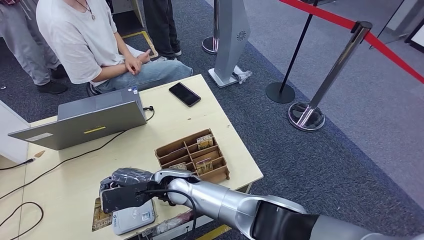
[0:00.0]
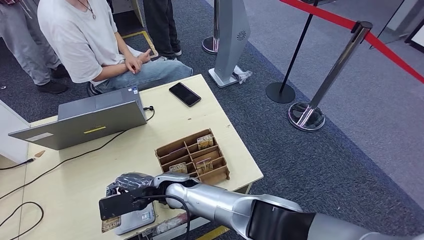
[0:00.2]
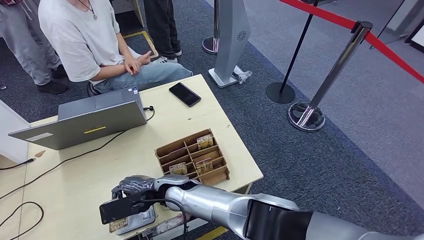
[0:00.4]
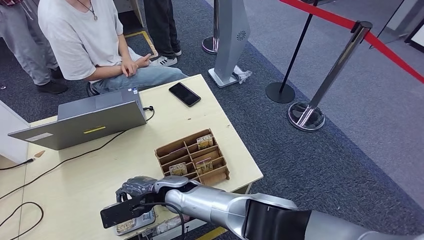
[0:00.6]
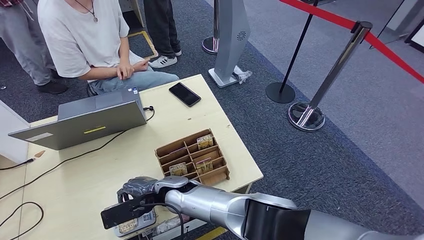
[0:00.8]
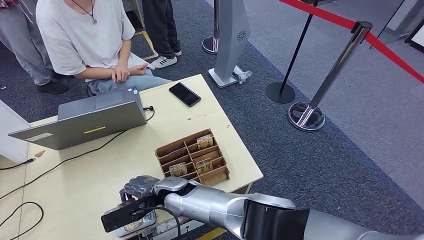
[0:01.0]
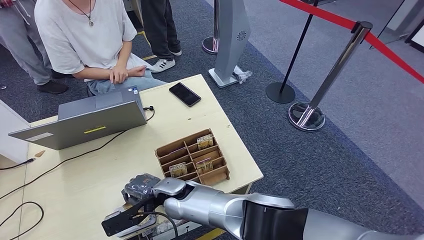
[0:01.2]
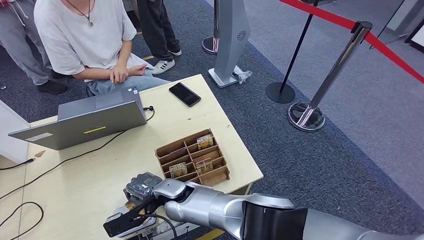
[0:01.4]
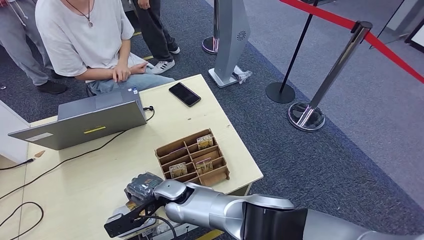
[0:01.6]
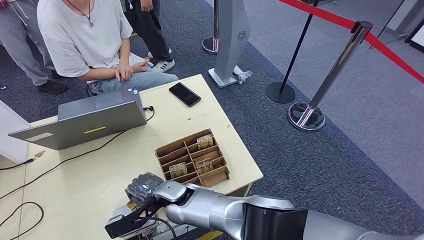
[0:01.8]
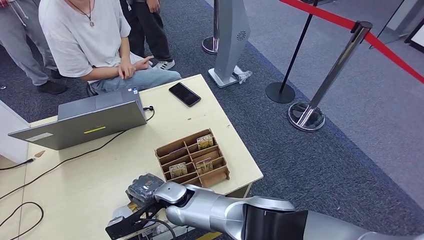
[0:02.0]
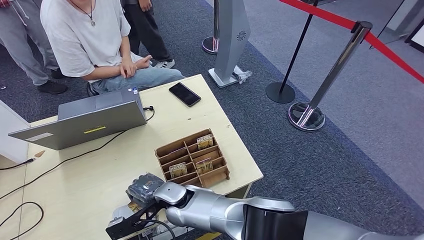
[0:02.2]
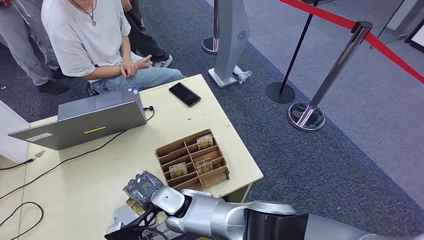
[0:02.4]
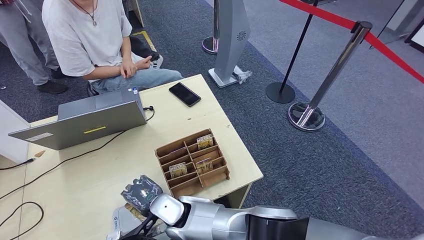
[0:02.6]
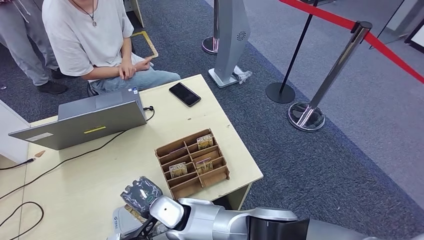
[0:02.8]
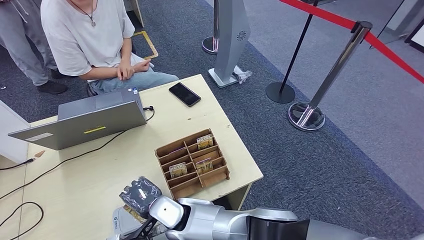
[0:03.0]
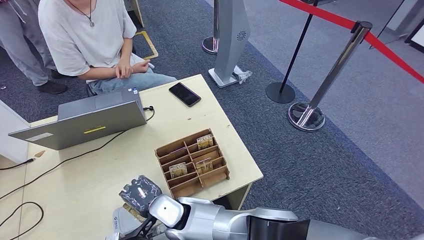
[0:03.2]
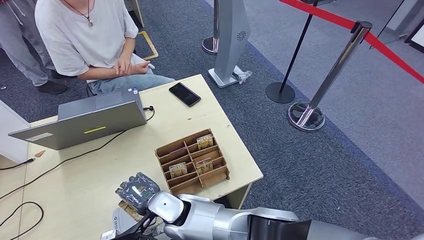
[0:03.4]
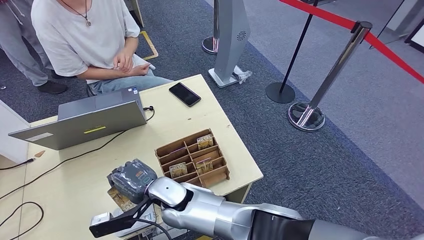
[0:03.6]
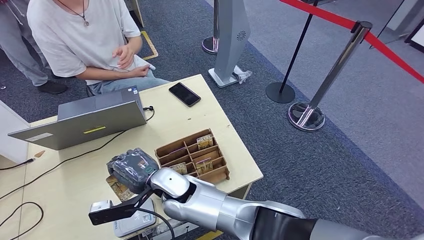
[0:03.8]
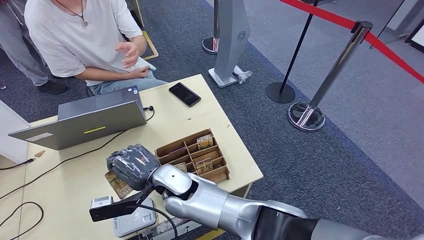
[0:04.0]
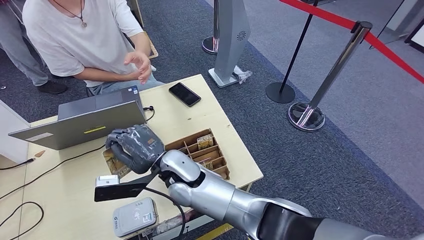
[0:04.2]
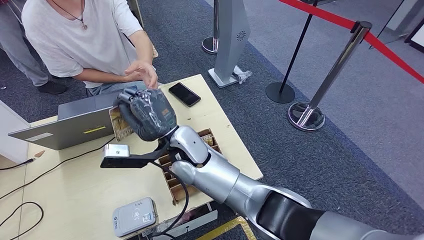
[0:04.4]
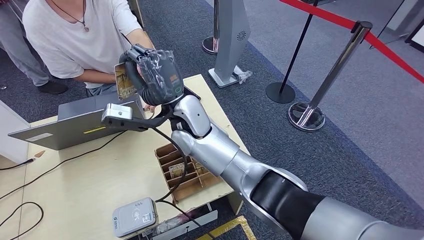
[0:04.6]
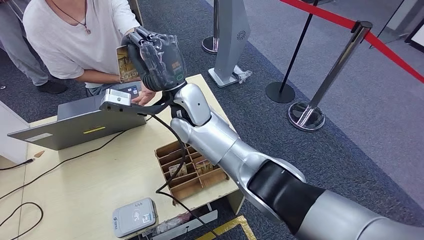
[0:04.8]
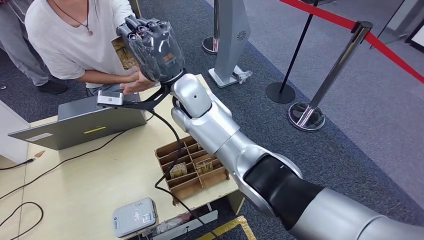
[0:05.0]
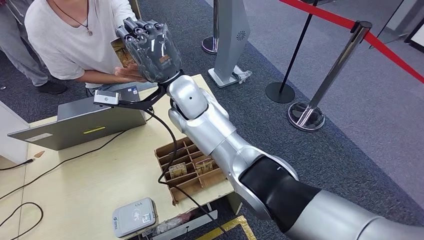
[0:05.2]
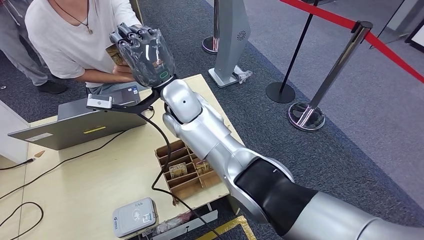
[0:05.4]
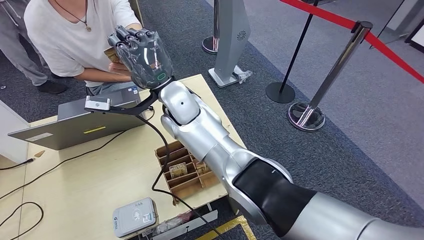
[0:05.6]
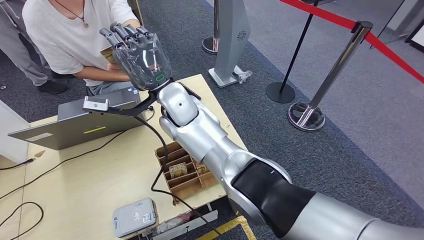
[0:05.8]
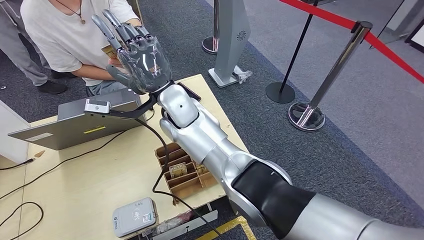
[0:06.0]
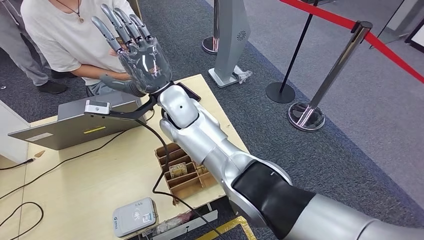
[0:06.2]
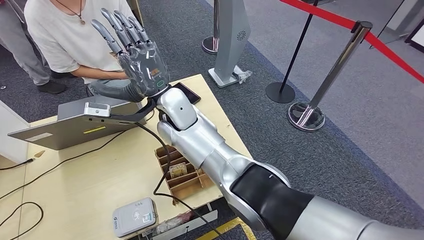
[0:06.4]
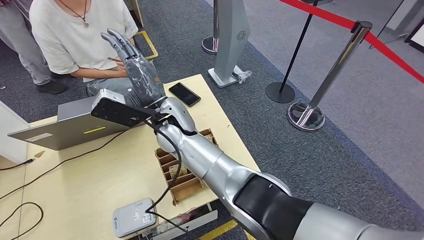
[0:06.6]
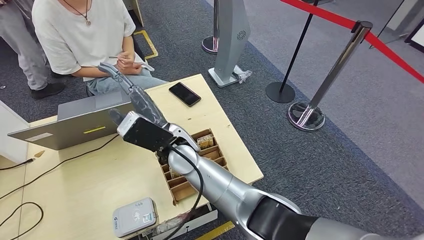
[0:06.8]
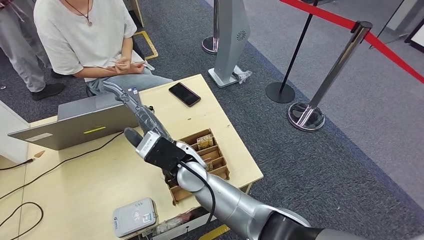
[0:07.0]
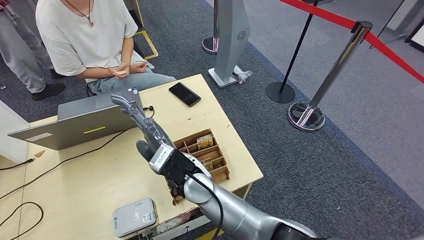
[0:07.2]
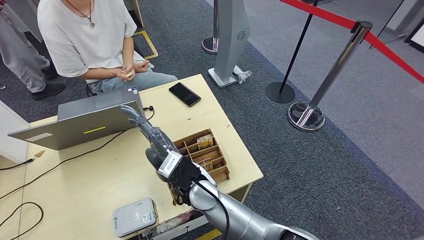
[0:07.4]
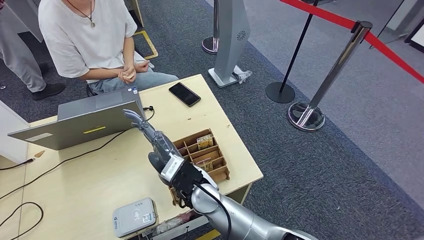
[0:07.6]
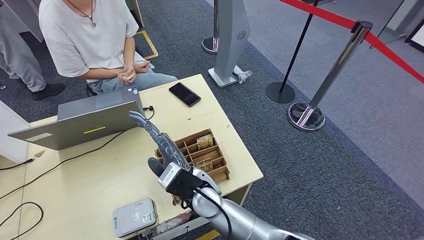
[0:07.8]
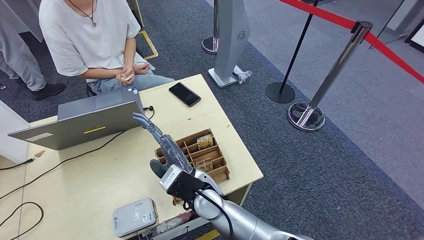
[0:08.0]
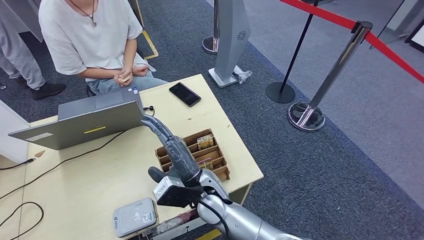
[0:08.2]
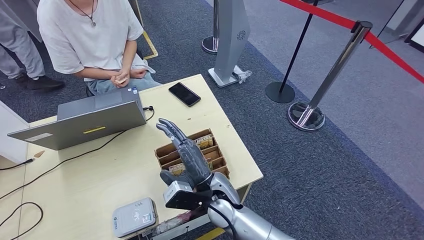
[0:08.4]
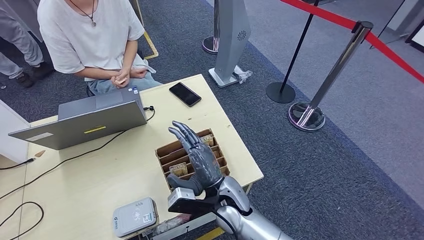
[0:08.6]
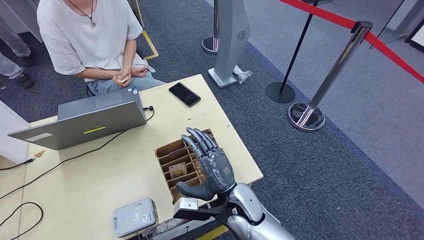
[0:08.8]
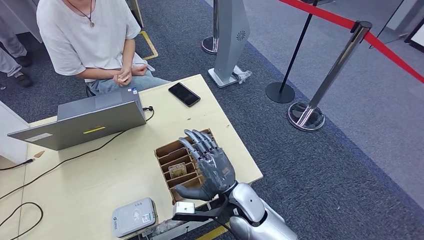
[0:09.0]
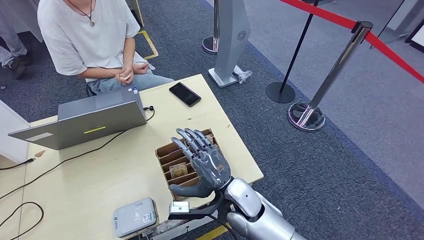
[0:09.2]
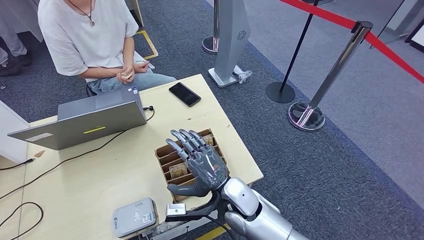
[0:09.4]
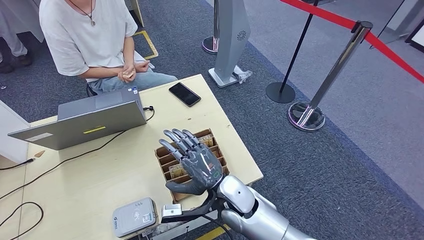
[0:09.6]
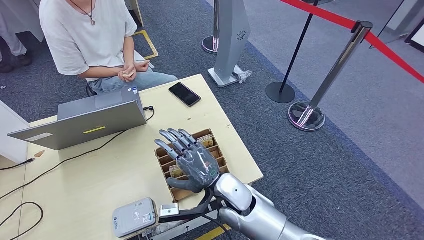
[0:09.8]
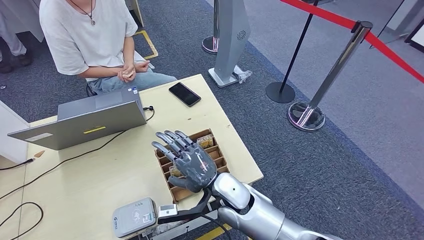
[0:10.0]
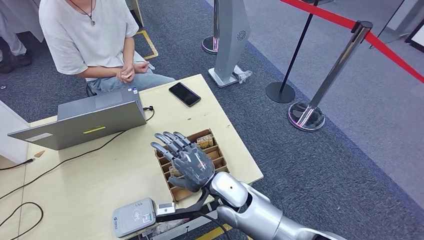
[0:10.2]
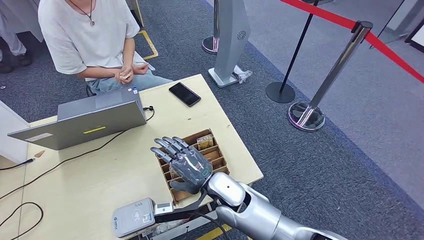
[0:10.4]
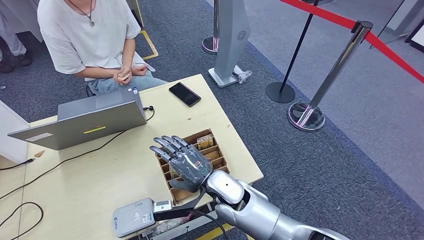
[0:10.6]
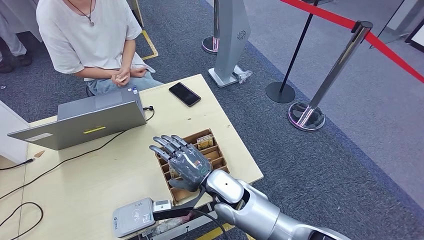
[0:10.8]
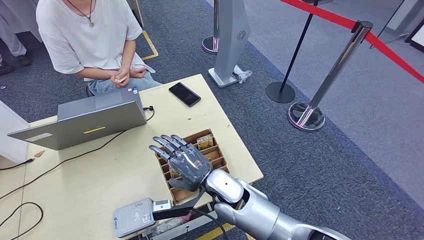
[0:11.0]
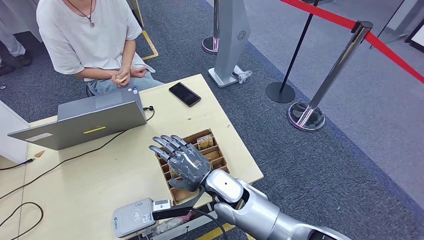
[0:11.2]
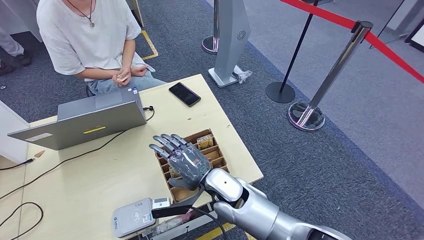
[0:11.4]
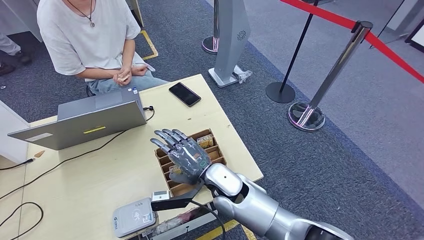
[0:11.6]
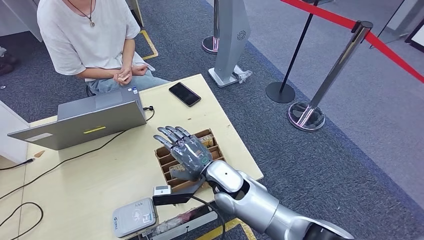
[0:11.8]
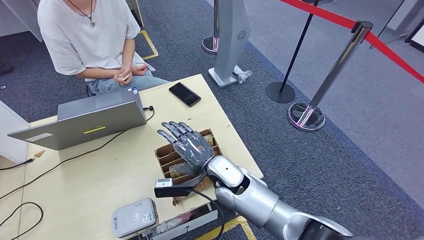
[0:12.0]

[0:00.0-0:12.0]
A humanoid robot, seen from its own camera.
Step, 0:00.8 to 0:07.0: Hand the ID card to the person.
0:00.0 to 0:01.6: The right hand goes about 5 cm downward.
0:07.6 to 0:09.0: The right hand shifts approximately 15 cm to the right, backward and downward. The left hand heads to the left and forward, covering about 10 cm.
0:09.0 to 0:10.4: The right hand ends up some 5 cm from where it was.
0:10.4 to 0:12.0: There are only small adjustments of the hands.

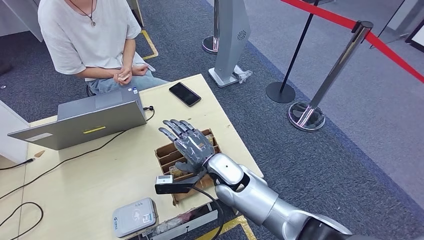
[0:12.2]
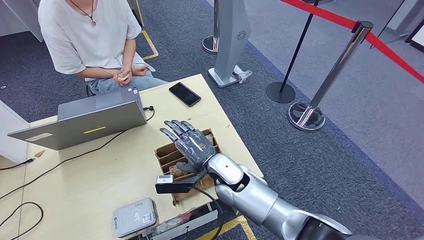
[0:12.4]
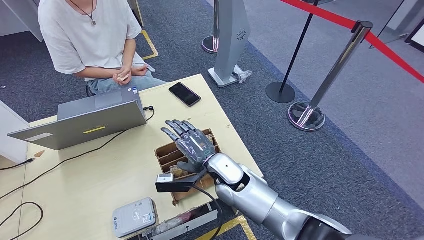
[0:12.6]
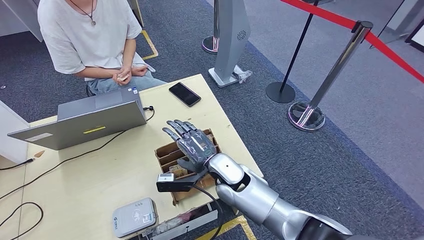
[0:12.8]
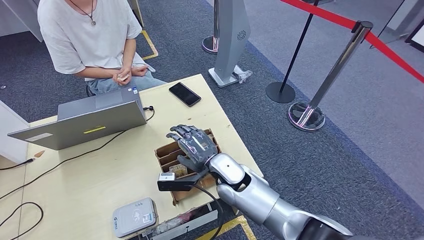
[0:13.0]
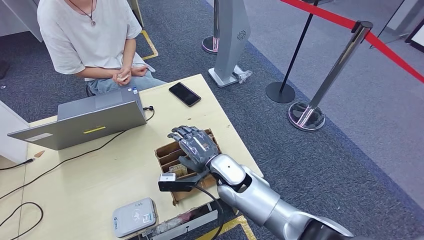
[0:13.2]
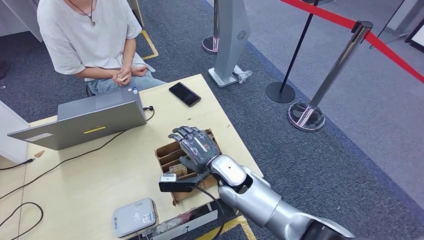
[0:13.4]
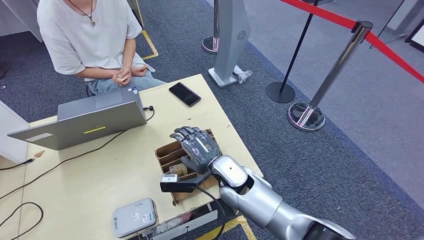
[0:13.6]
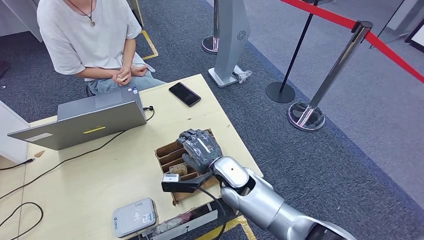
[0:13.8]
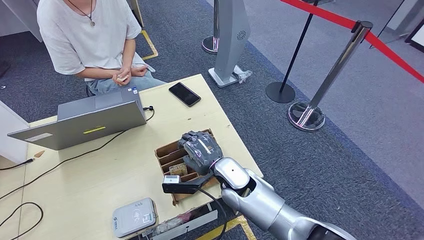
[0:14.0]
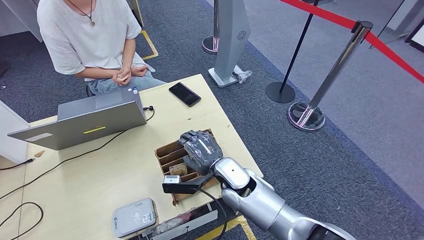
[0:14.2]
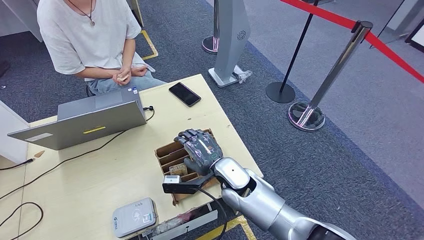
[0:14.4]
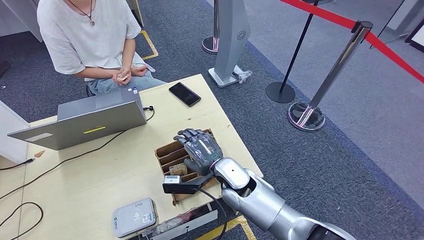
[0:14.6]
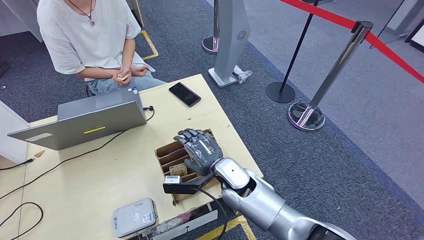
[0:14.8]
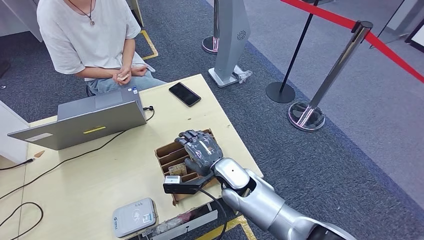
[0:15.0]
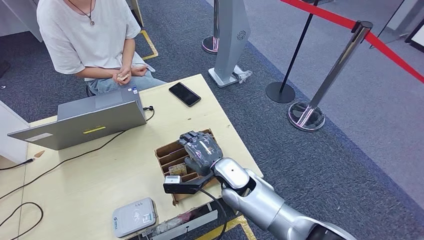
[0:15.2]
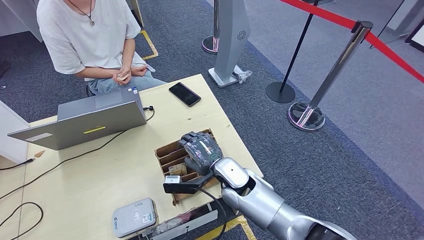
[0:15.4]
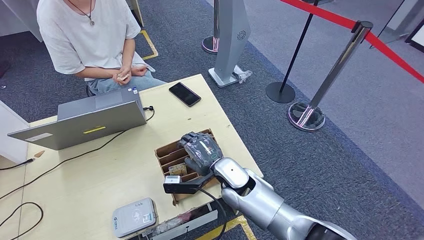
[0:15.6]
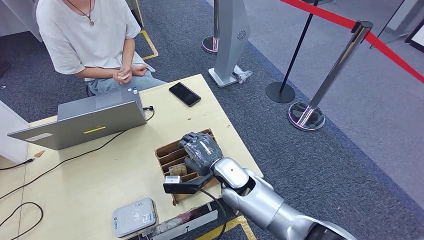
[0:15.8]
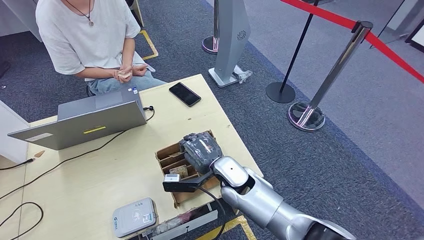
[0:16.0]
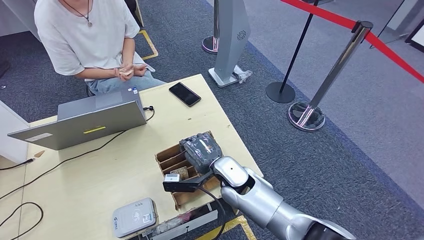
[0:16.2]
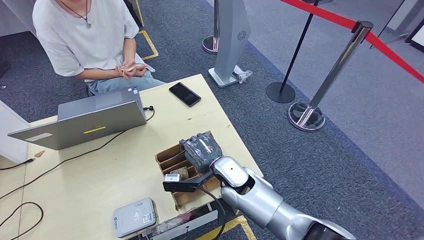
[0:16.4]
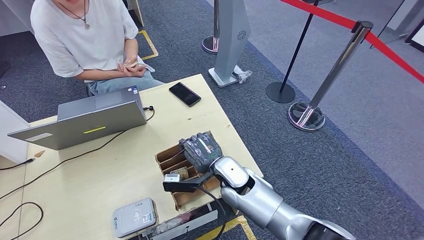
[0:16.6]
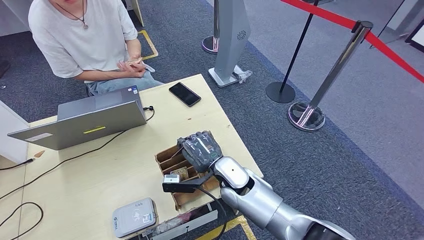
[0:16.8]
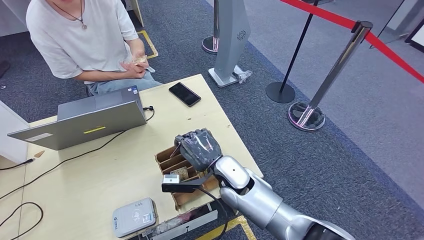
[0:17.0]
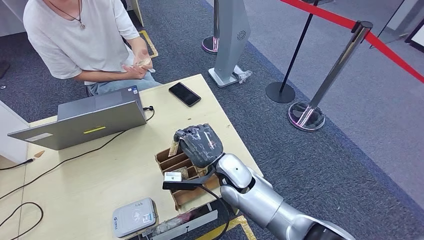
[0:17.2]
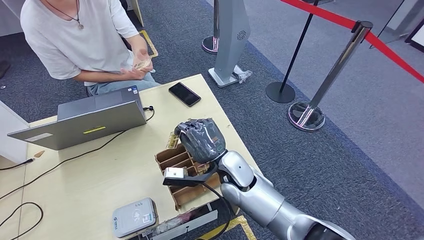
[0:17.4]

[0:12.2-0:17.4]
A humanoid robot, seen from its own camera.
Step, 0:12.2 to 0:17.2: Pick up the room key from the key card box.
0:12.2 to 0:14.0: The hands make only small movements.
0:14.0 to 0:15.6: Neither hand changes place.
